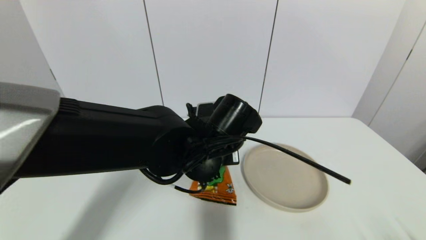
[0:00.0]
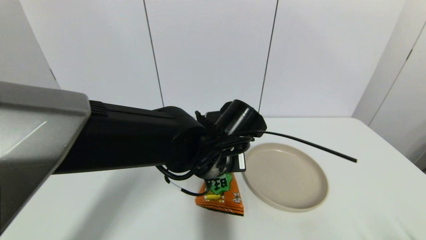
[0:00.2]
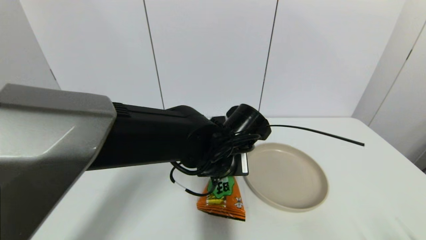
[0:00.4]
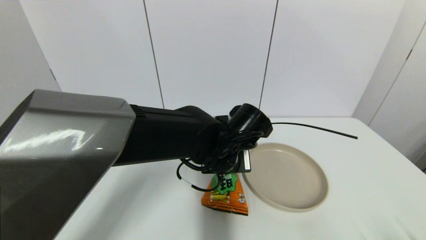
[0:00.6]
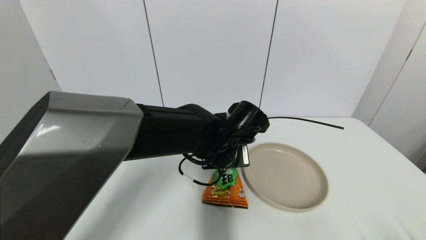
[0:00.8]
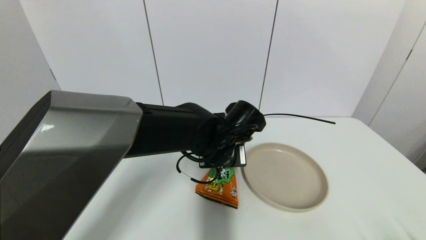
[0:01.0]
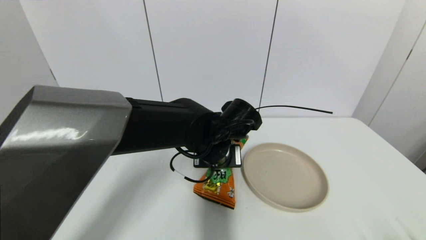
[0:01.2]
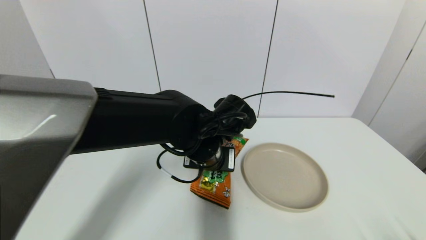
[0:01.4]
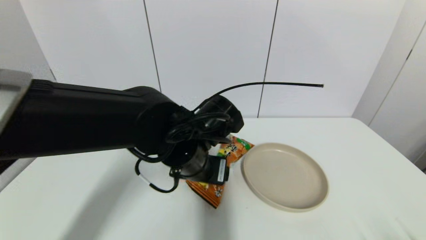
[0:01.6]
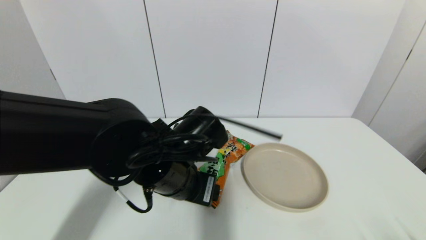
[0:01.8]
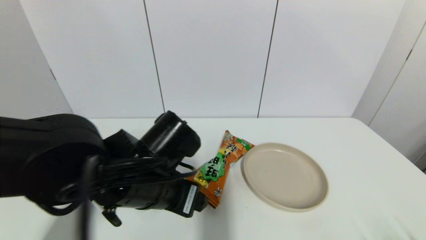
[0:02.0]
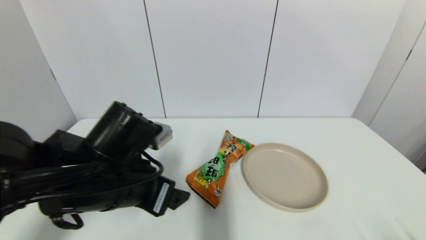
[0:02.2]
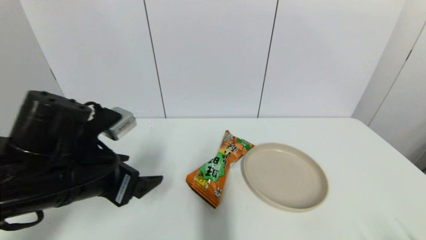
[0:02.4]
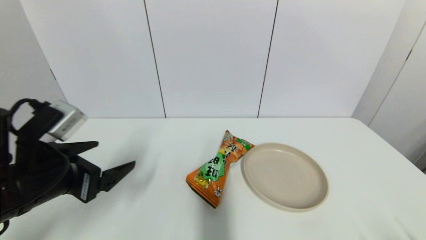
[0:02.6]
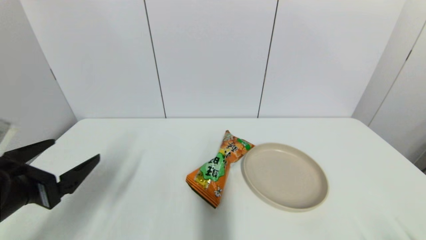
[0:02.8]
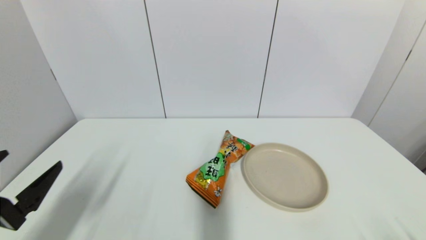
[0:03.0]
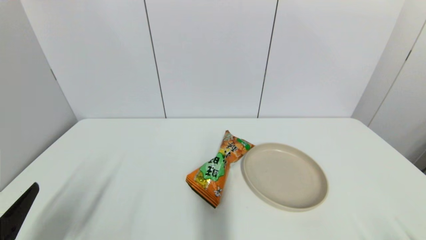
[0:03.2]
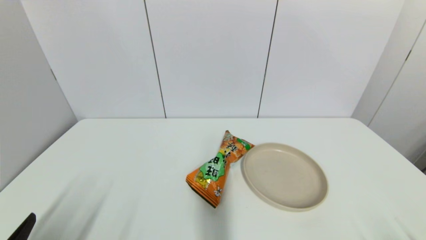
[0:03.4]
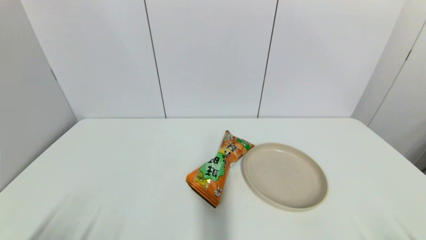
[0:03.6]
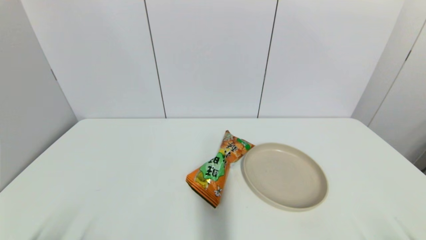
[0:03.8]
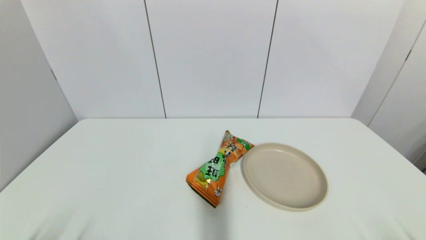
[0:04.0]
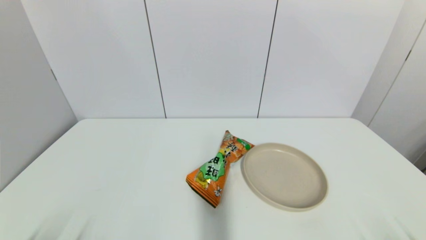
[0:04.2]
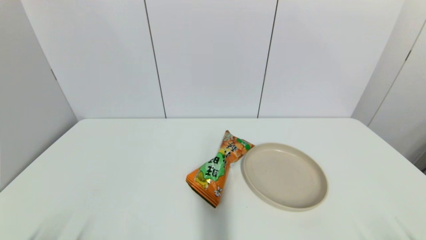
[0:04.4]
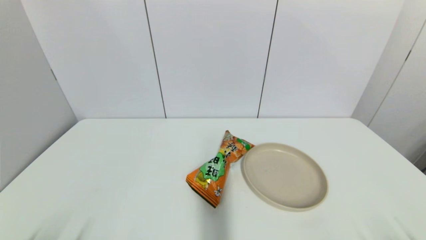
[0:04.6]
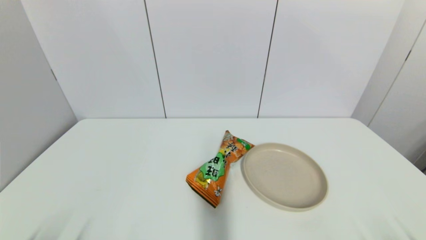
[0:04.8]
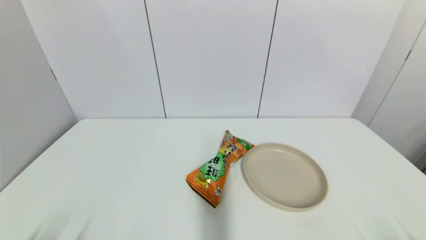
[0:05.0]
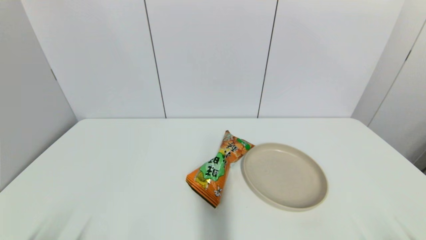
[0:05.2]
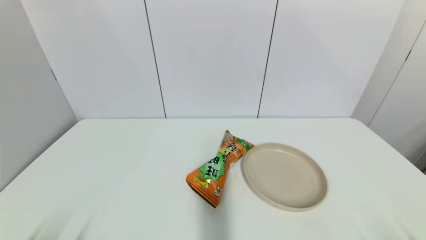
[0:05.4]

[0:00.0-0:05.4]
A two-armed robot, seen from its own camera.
Step, 0:00.0 to 0:02.0: Place the cookie on the table with left gripper.
0:00.0 to 0:01.4: The left gripper opens.
0:01.4 to 0:02.8: The left gripper shifts about 30 cm to the left and backward.
0:02.8 to 0:04.0: The left gripper is displaced backward and downward by some 20 cm.
0:04.0 to 0:05.4: Neither gripper changes place.
